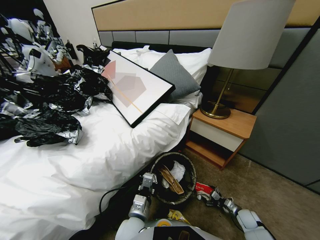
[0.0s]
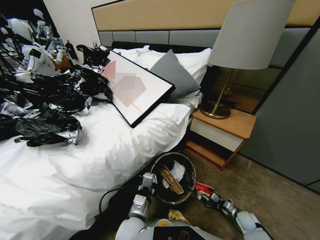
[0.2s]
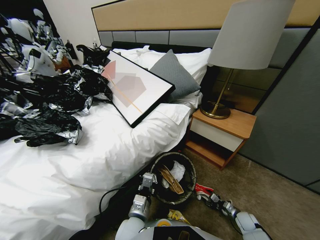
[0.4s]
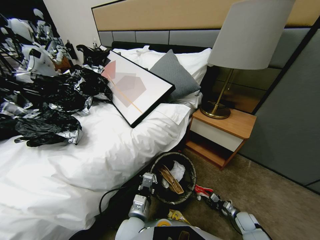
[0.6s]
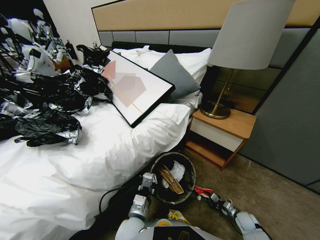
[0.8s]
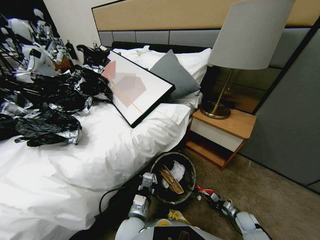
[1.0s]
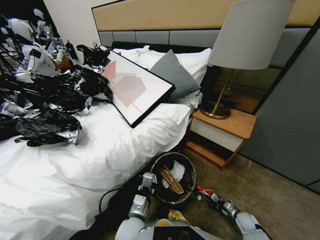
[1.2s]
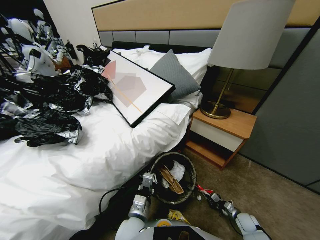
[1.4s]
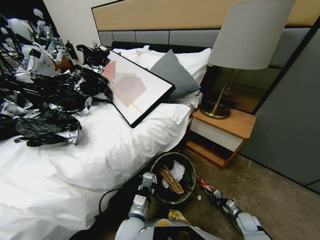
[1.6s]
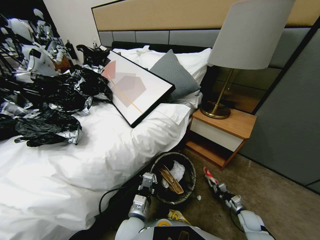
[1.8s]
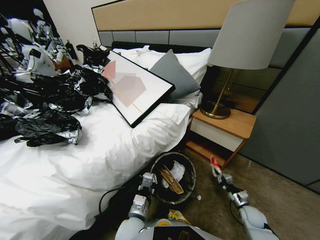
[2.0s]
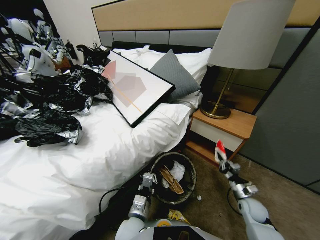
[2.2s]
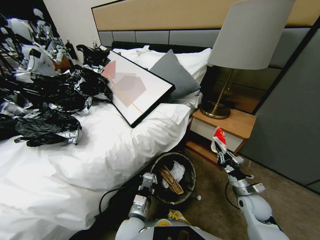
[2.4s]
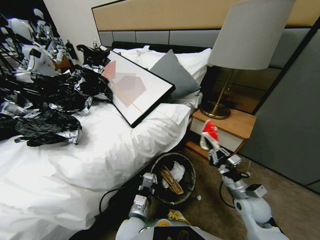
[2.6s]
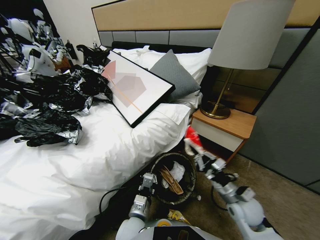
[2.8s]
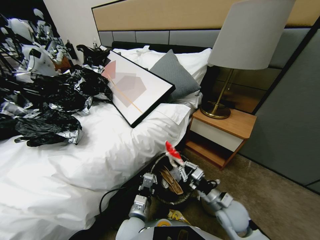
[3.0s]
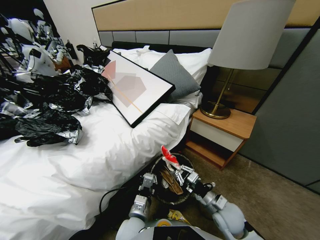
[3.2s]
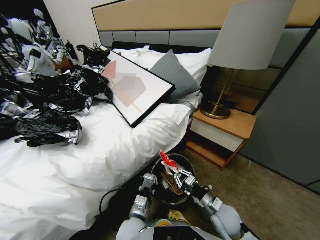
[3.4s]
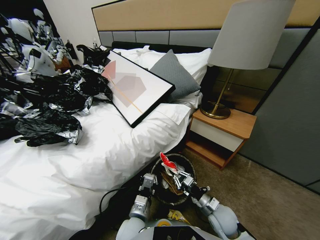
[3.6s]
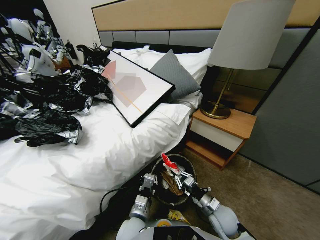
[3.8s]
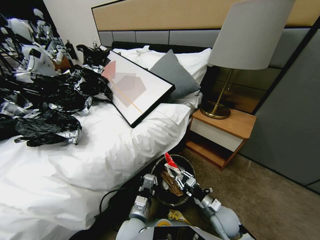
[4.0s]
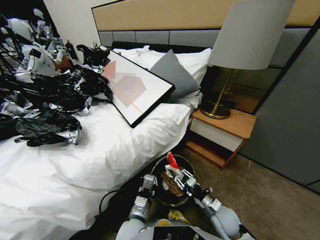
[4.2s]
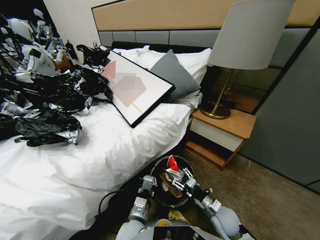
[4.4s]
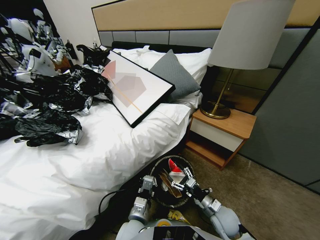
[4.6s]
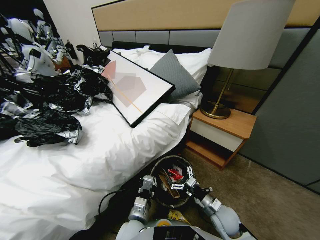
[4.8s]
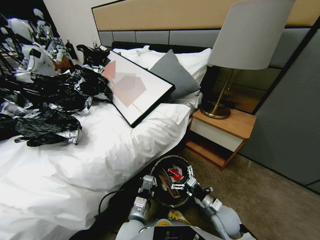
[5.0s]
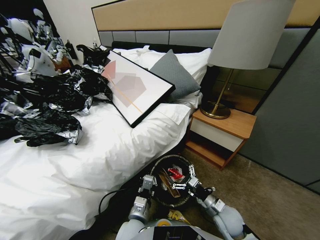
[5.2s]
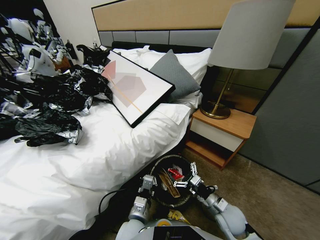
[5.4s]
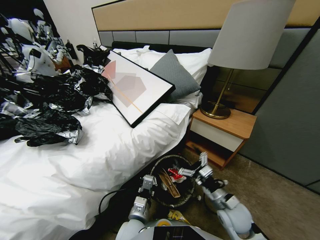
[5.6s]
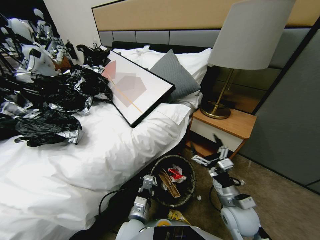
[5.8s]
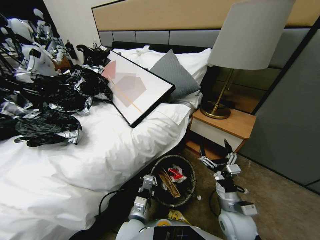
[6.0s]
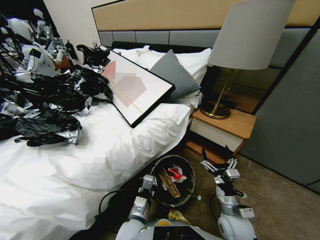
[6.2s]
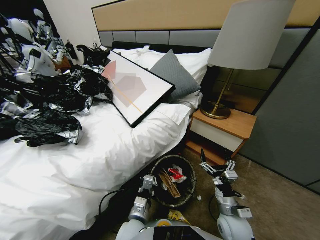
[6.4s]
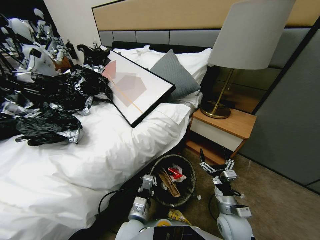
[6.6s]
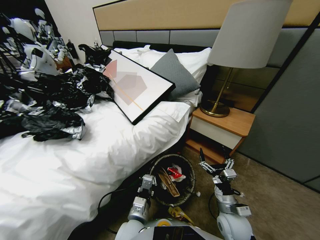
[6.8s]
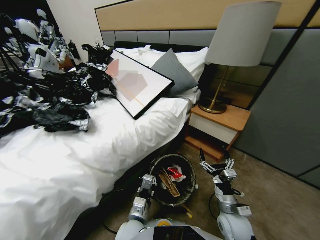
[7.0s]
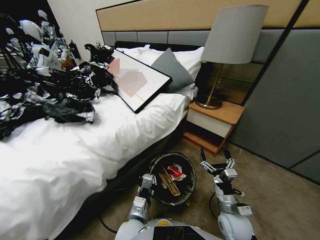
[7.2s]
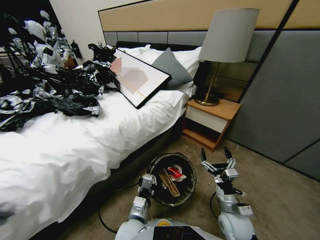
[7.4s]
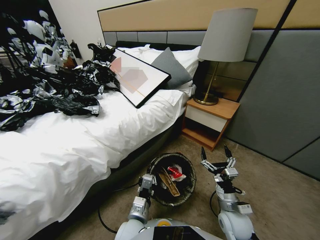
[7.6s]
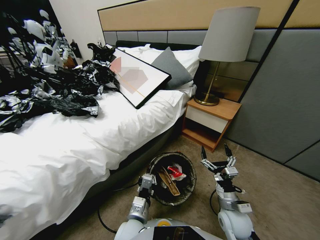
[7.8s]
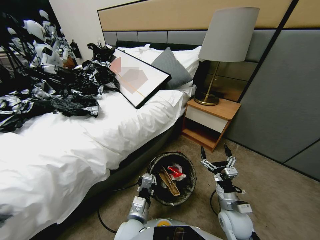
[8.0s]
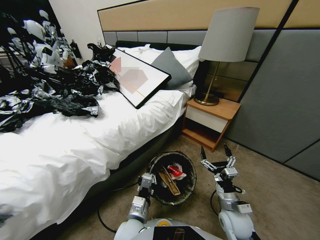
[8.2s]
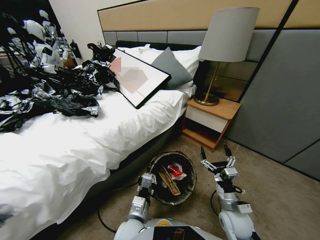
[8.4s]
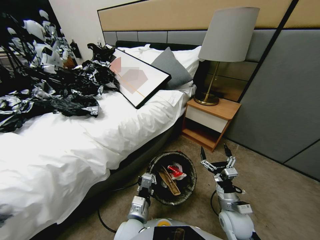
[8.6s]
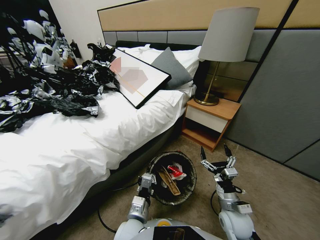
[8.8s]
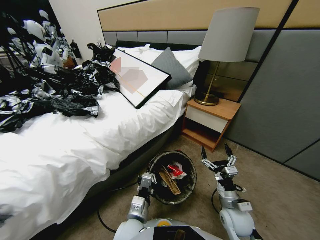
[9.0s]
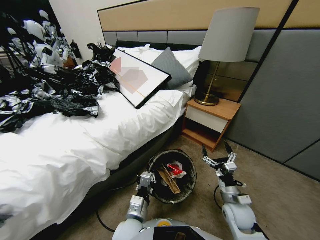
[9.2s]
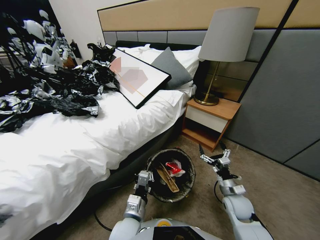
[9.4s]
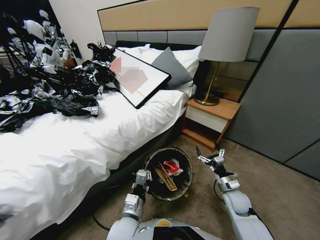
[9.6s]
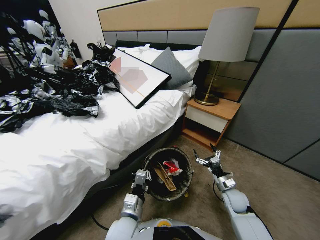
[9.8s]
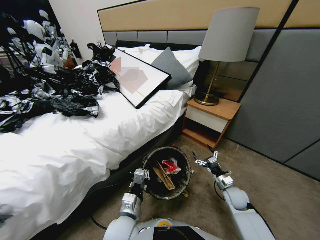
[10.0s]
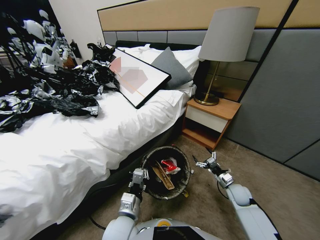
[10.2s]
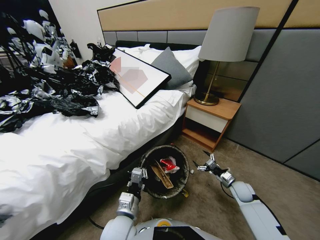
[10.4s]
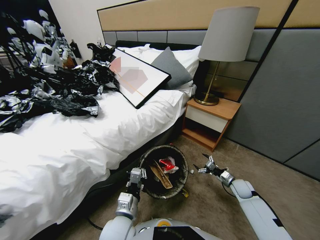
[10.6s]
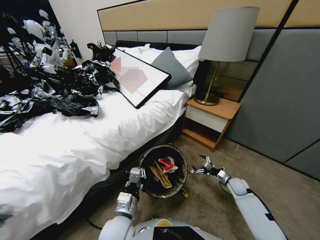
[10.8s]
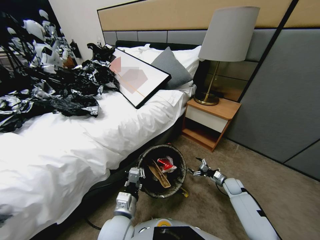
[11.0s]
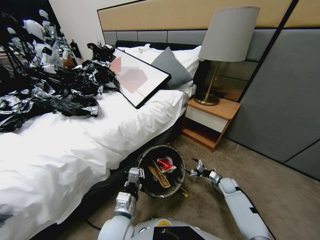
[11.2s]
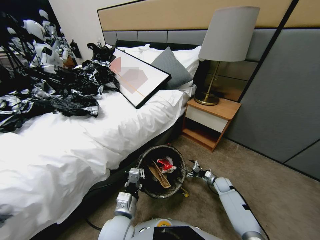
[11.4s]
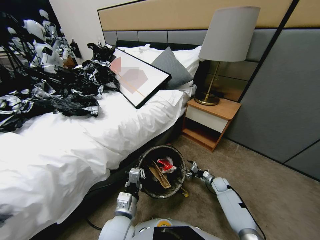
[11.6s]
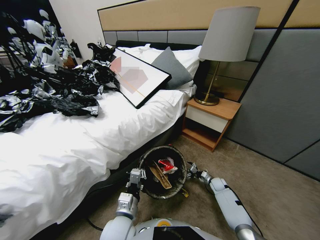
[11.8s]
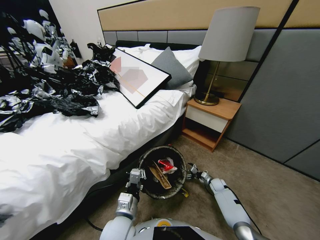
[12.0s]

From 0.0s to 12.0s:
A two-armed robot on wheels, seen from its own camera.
Task of the whole recording: Pick up the trash bin, then pick up the garbage from the floor and place it into the trash bin.
From 0.0s to 1.6s: The right gripper closes up.
From 1.6s to 3.0s: The right gripper travels upward and to the left by about 30 cm.
From 3.0s to 4.4s: The right gripper shifts approximately 5 cm downward, and opens.
From 4.4s to 6.0s: The right gripper travels upward by some 5 cm.
From 7.6s to 9.0s: The grippers make only small movements.
From 9.0s to 10.4s: The right gripper travels to the right, forward and downward by roughly 20 cm.
From 10.4s to 12.0s: The right gripper goes some 15 cm downward and forward.

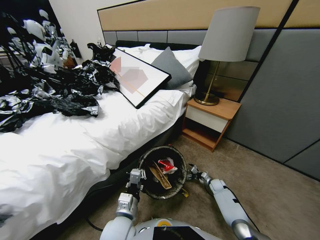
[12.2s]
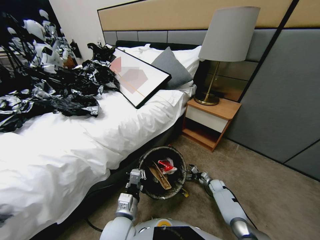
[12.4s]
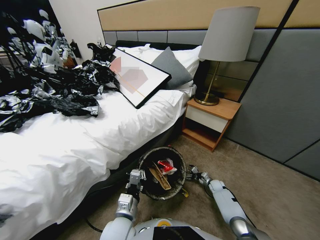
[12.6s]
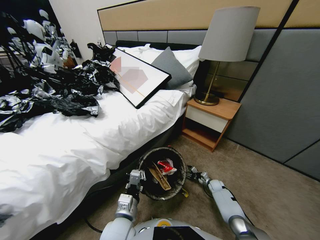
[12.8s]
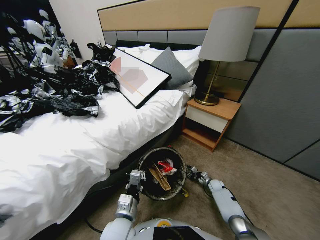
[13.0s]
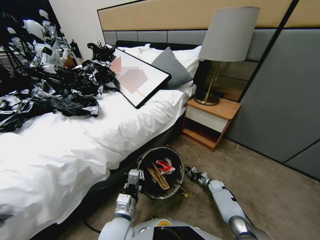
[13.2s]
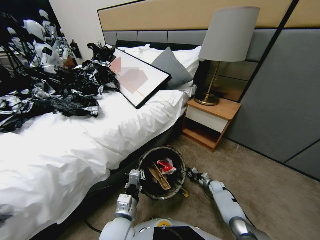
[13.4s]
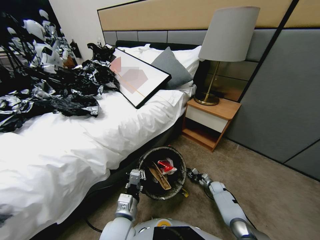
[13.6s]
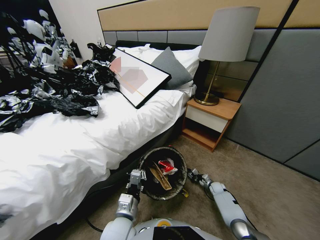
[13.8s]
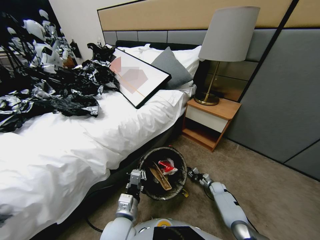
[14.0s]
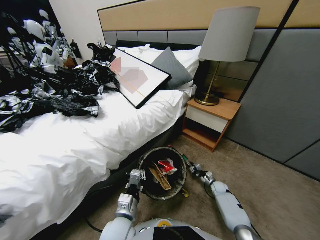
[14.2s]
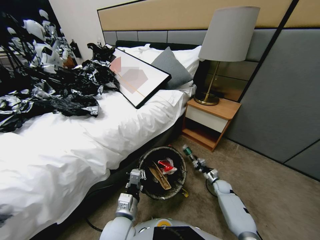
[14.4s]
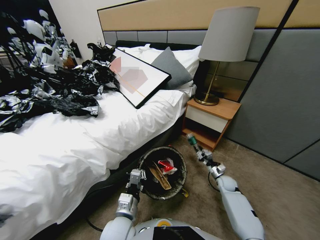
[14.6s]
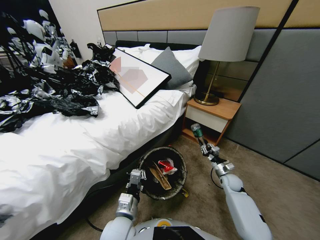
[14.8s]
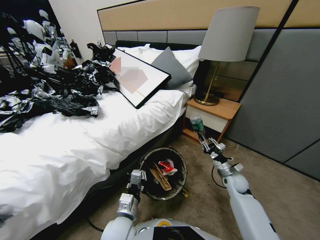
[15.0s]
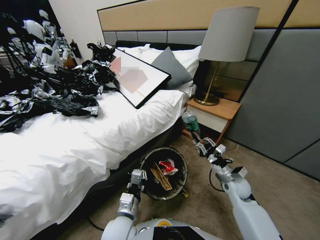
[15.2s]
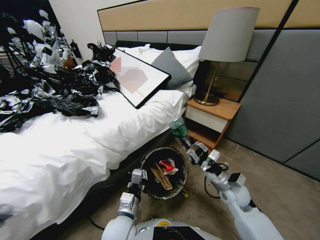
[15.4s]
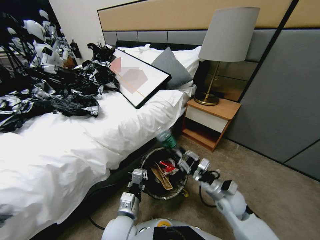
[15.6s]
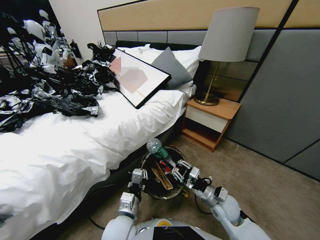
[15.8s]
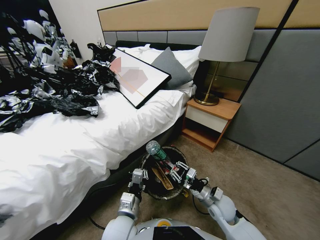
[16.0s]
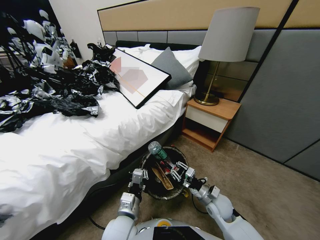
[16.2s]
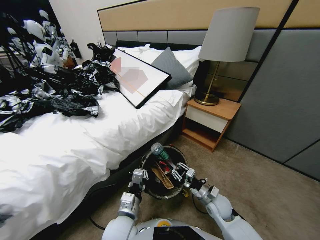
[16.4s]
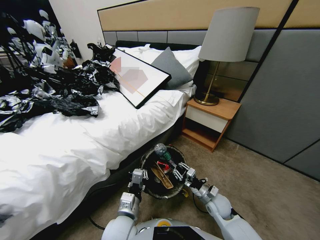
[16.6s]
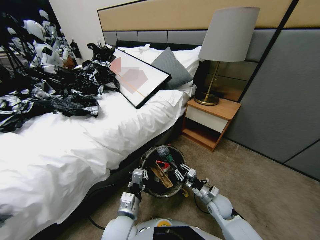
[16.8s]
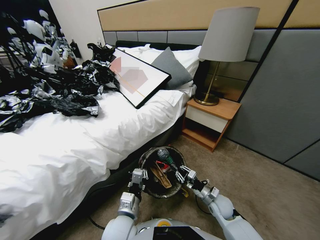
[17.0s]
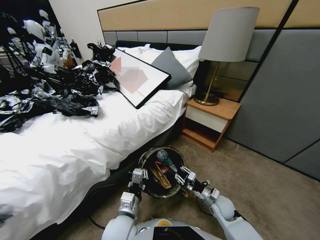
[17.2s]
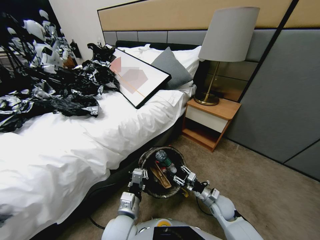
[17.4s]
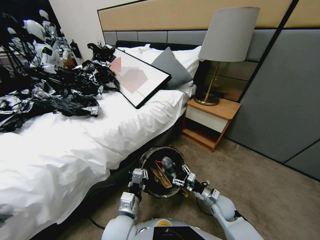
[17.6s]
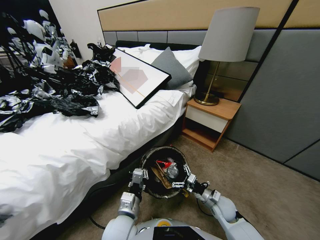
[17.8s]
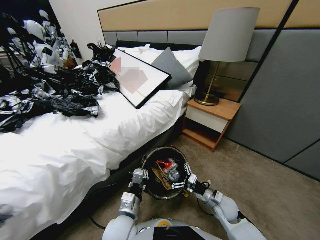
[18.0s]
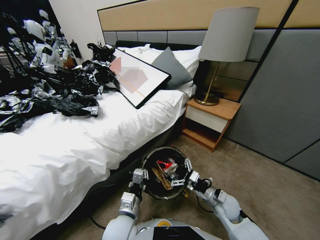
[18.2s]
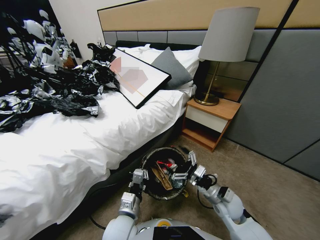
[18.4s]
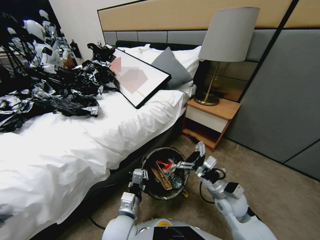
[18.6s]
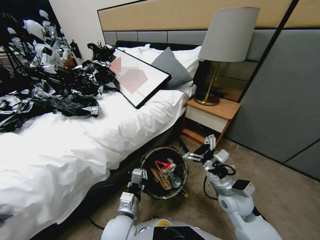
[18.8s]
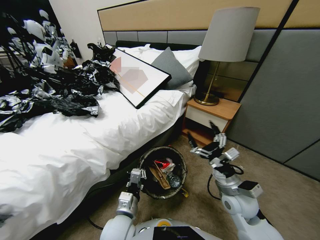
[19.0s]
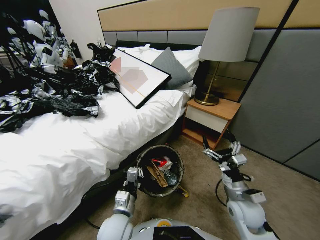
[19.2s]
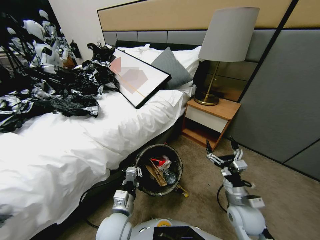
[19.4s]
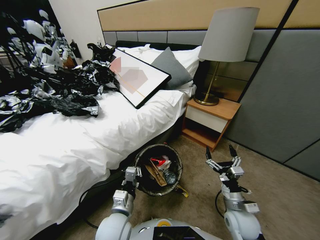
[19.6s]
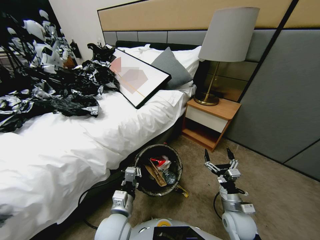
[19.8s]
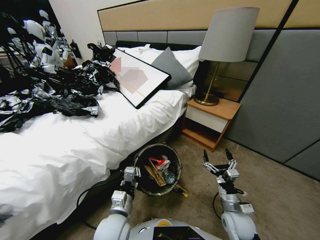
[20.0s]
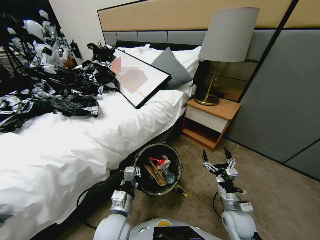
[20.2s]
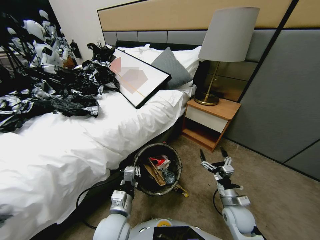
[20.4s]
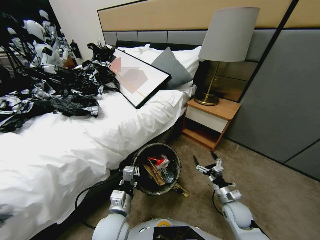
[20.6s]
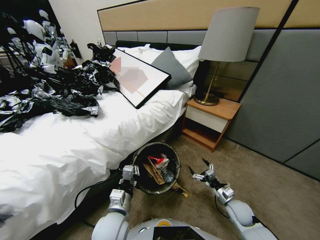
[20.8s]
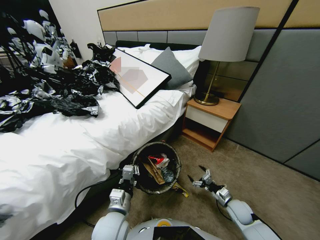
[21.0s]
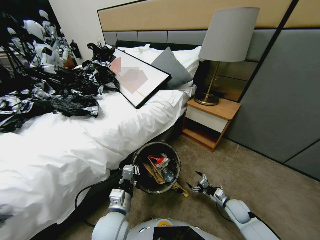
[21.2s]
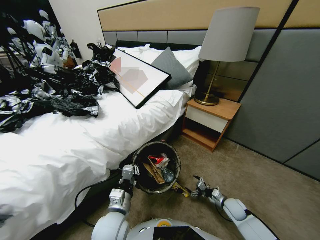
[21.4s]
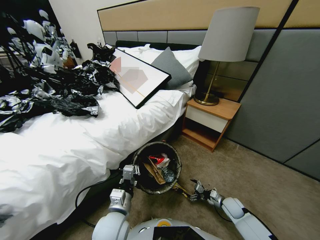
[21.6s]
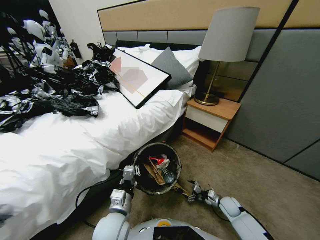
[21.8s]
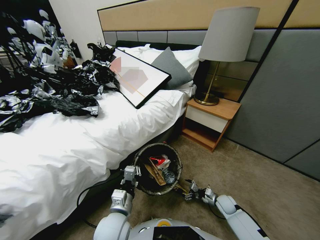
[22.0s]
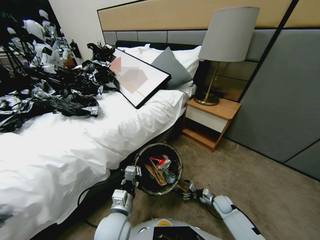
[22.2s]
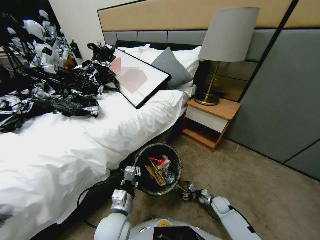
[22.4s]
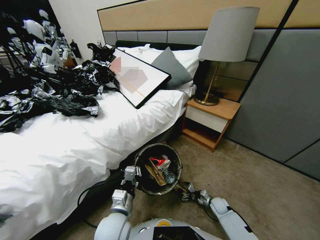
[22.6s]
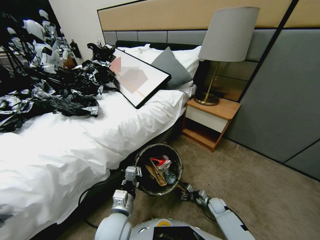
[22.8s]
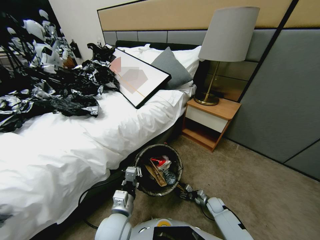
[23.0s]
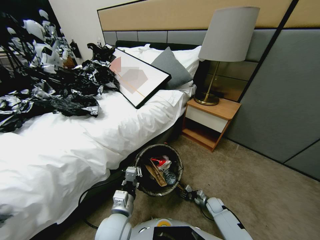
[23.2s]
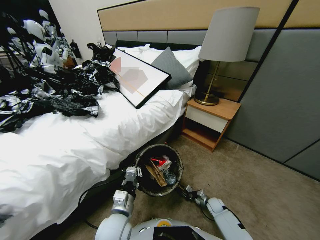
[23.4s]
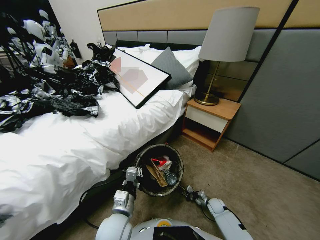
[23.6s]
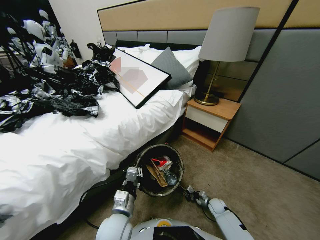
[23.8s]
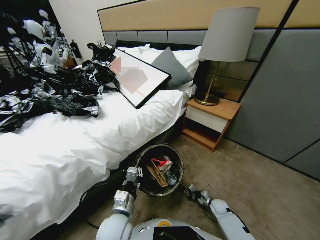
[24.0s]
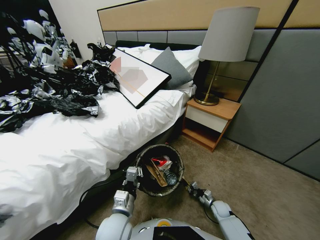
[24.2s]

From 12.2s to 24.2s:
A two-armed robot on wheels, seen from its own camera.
Task of the whole recording: Pick up the trash bin, then pick up the garbage from the floor and place it into the trash bin.
From 12.2s to 13.8s: The right gripper closes its fingers.
From 13.8s to 15.2s: The right gripper moves upward, about 30 cm.
From 15.2s to 16.6s: The right gripper heads downward, covering some 10 cm.
From 16.6s to 18.2s: The right gripper shifts roughly 10 cm upward, and opens its fingers.
From 18.2s to 19.8s: The right gripper travels backward by some 5 cm, and goes upward and returns, approximately 5 cm each way.
From 19.8s to 21.2s: The right gripper moves downward, to the right and forward, approximately 15 cm.
From 21.2s to 22.6s: The right gripper goes about 10 cm downward.
From 22.6s to 24.2s: The right gripper closes up.
